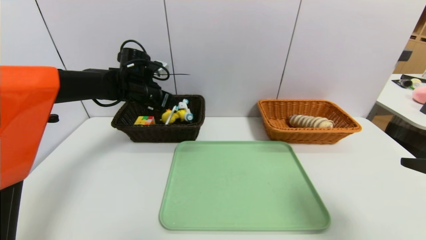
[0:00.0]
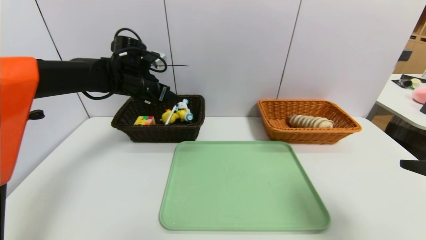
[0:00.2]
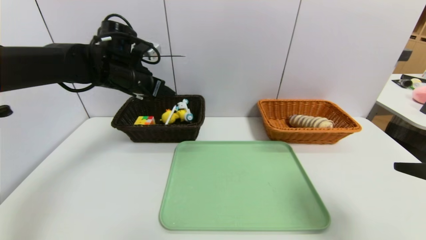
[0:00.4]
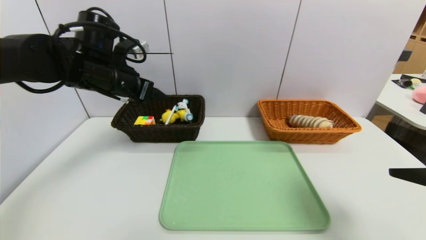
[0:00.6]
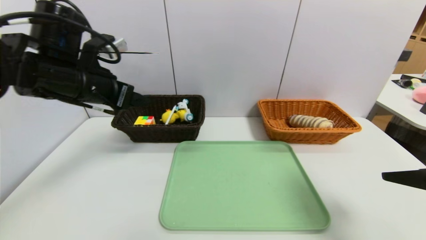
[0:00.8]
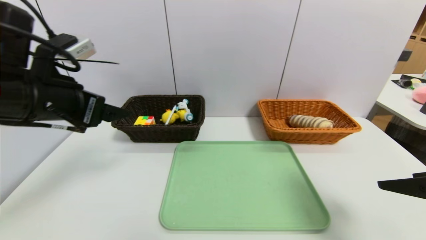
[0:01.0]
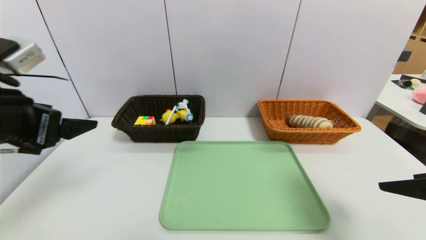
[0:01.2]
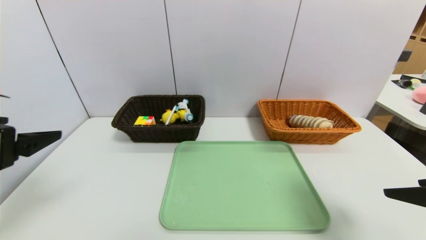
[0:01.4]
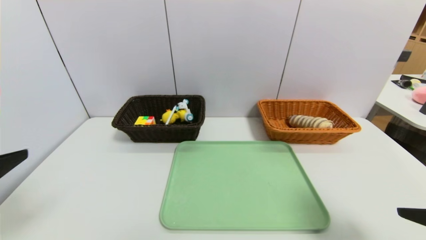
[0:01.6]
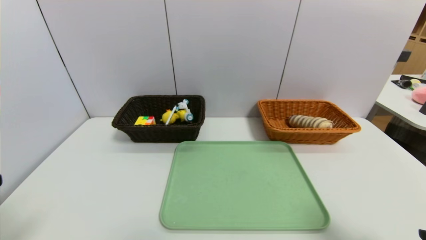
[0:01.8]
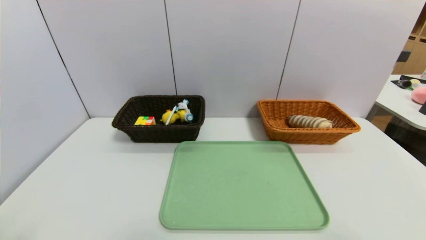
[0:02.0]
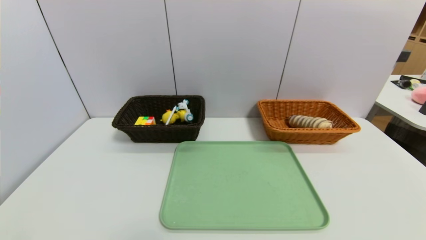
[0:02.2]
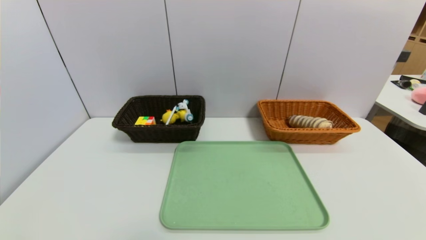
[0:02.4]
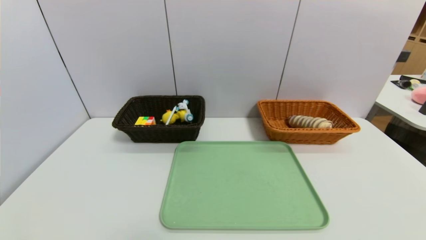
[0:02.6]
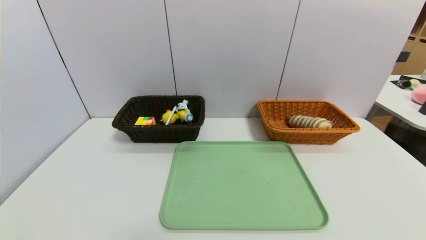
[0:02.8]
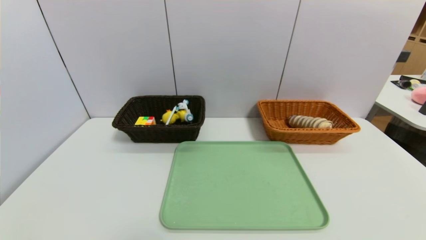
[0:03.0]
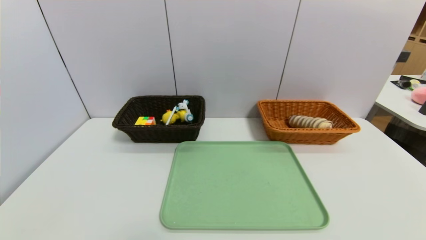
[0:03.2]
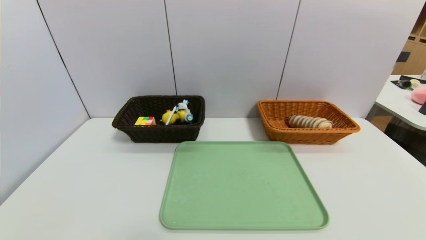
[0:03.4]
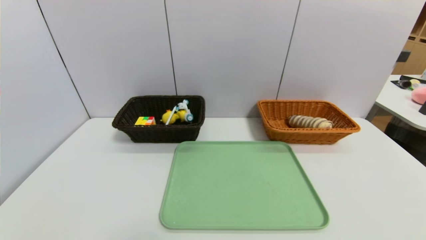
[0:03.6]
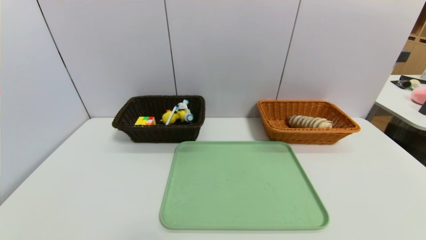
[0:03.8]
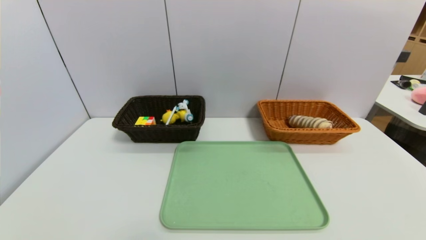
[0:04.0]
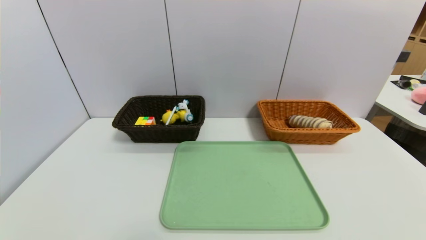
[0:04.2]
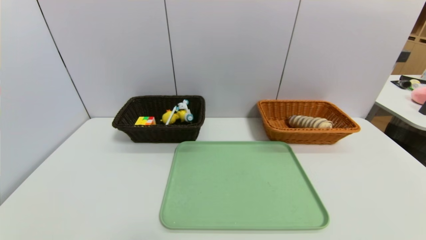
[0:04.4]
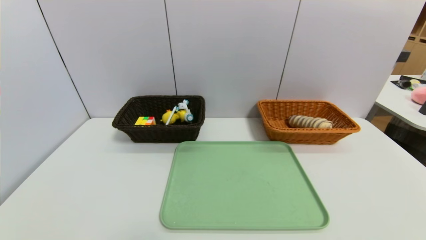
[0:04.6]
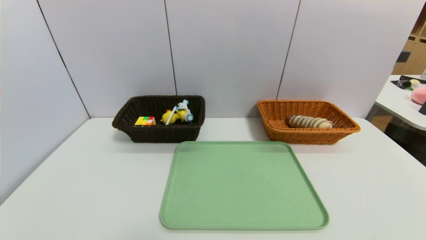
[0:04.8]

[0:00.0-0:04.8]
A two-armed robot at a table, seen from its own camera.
Task of the whole recording: place the food in the right basket with the right gripper, and place the non food items in the left basket with the left gripper.
0:00.0 to 0:01.6: The left gripper moves backward, about 35 cm.
0:01.6 to 0:03.2: Both grippers move downward and backward, about 15 cm.
